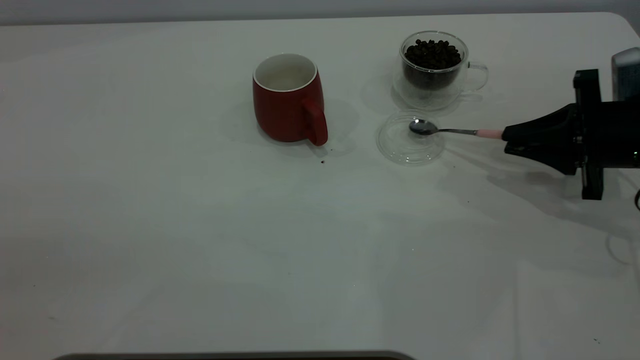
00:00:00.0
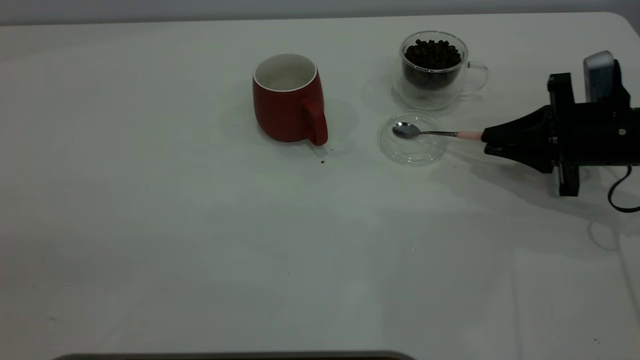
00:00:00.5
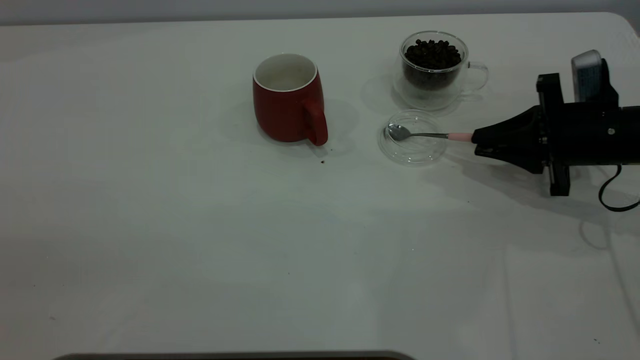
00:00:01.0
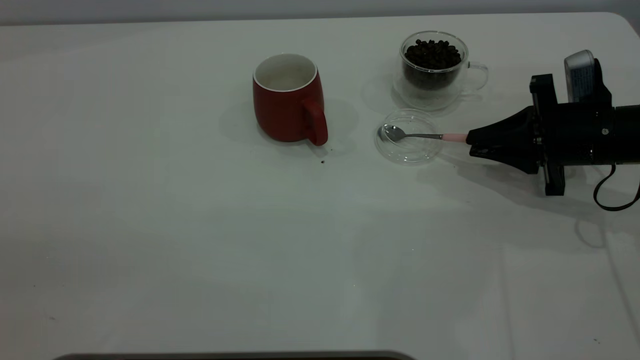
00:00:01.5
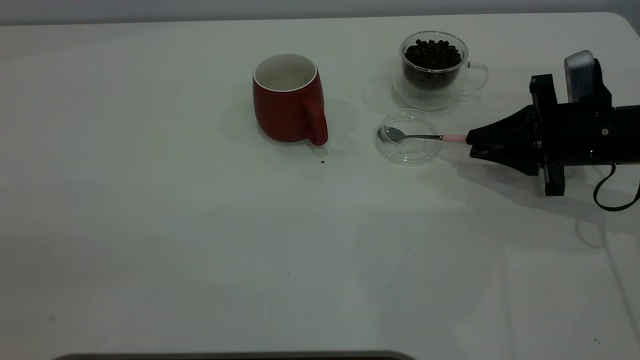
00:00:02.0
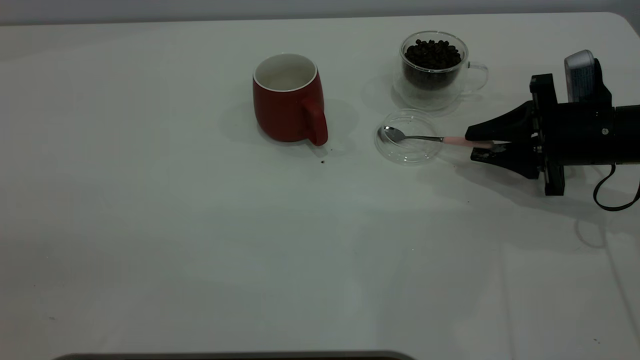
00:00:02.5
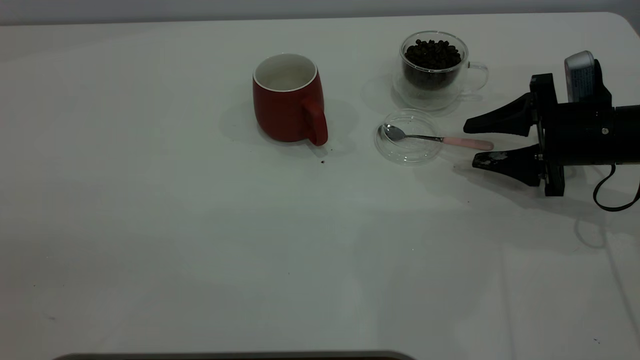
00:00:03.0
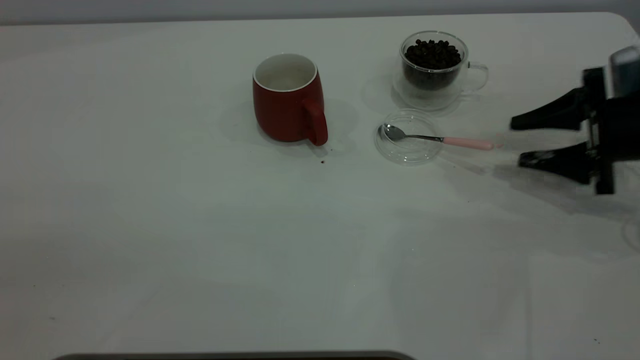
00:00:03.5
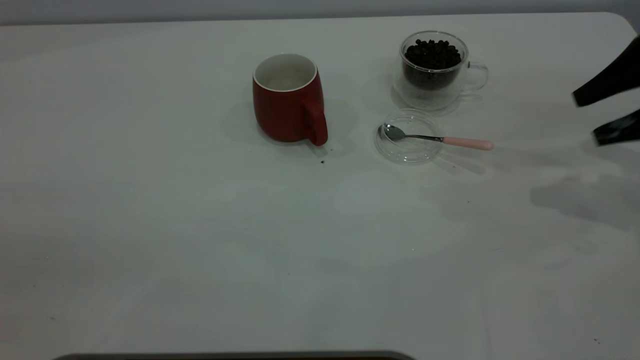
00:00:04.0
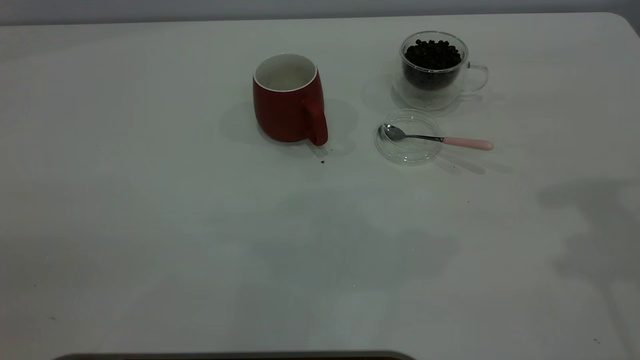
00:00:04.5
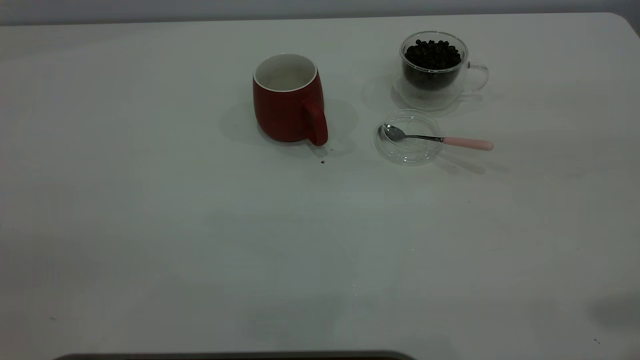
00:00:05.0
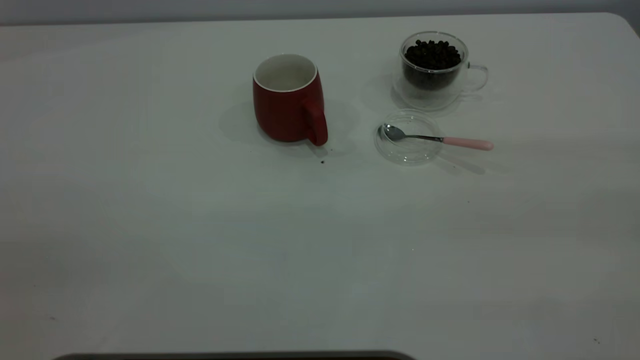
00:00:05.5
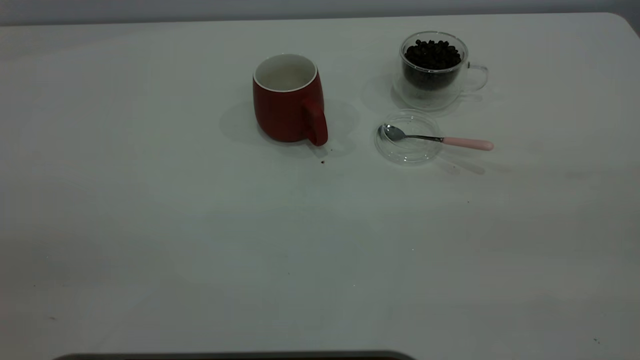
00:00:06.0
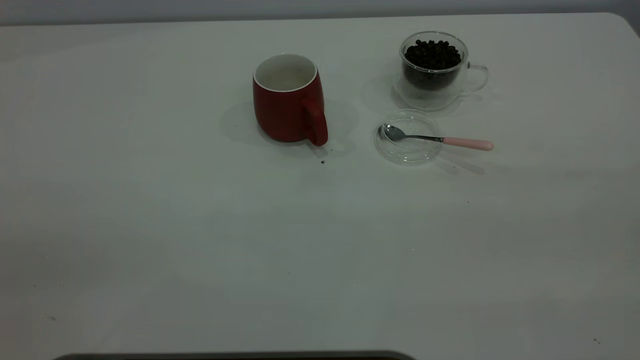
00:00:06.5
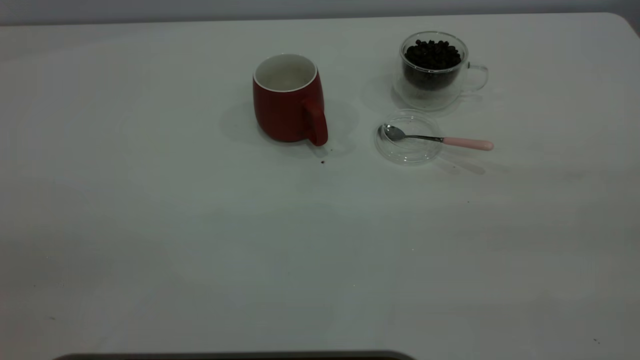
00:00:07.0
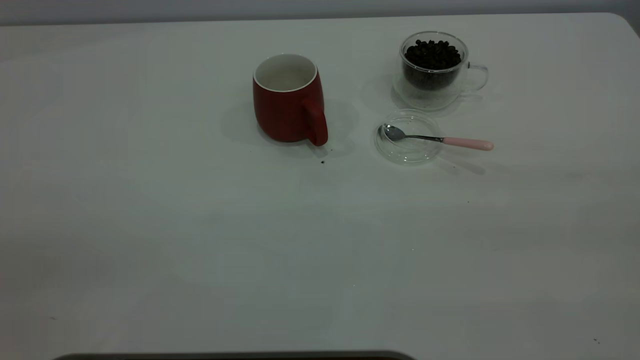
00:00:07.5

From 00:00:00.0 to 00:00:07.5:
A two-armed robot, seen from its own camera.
Task of the whole recording: the left gripper place the red cup in the center of the table, the right gripper take the pink spoon from the cup lid and scoop out the coffee beans from the coffee cup and put them into the red cup, the right gripper put the spoon back into the cup lid.
Step, from 00:00:00.0 to 00:00:03.0: Place the spoon back in its original place.
From 00:00:00.0 to 00:00:02.0: The grippers move only a little.
From 00:00:02.0 to 00:00:04.0: The right gripper heads upward and to the right, covering roughly 15 cm, and opens its fingers.
From 00:00:04.0 to 00:00:05.5: The right gripper shifts some 35 cm backward and upward.
